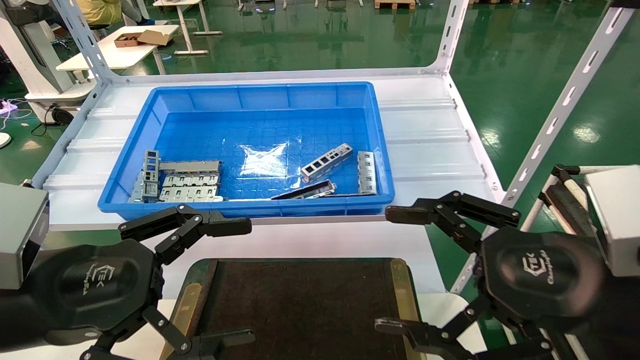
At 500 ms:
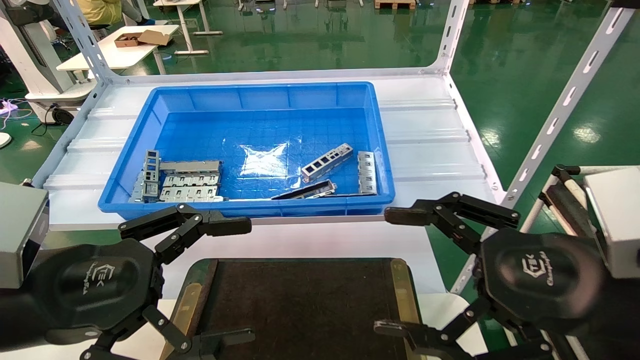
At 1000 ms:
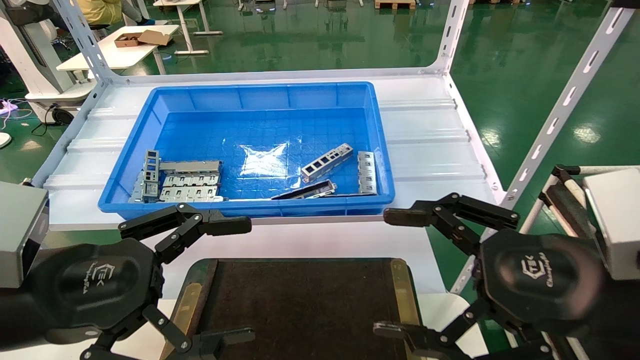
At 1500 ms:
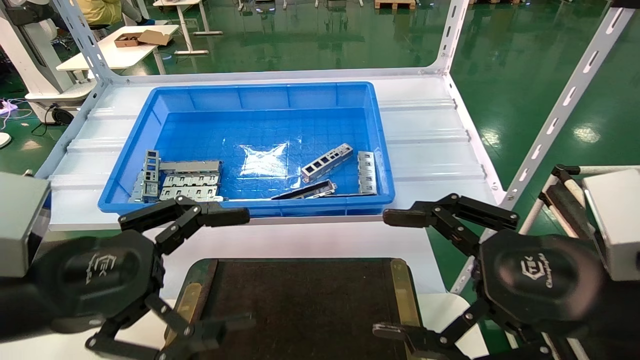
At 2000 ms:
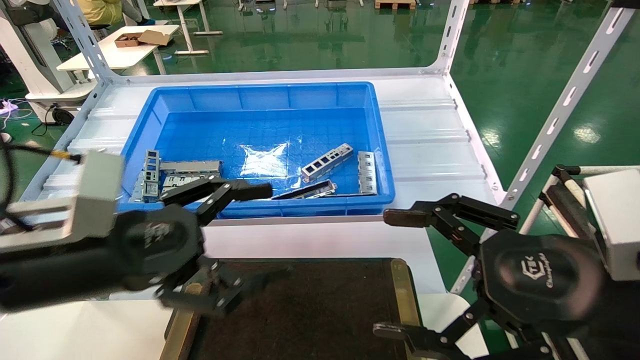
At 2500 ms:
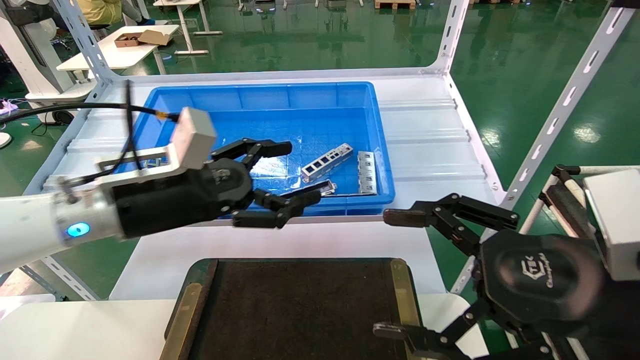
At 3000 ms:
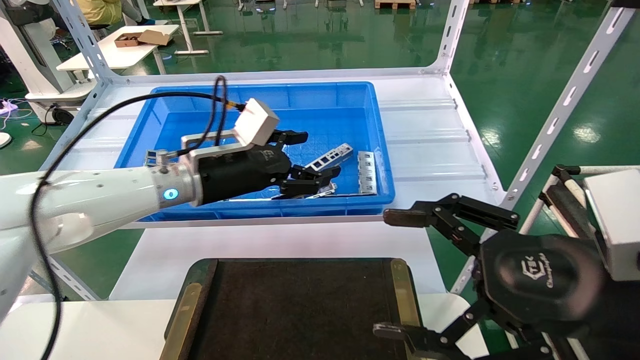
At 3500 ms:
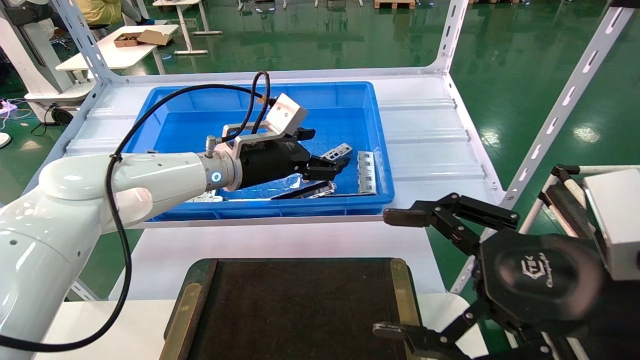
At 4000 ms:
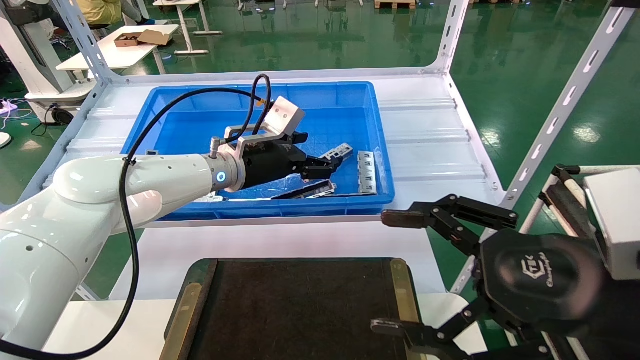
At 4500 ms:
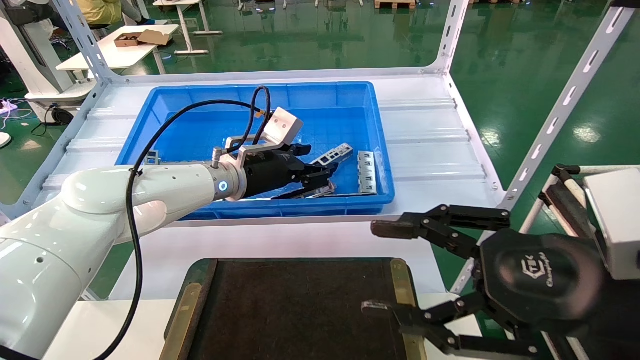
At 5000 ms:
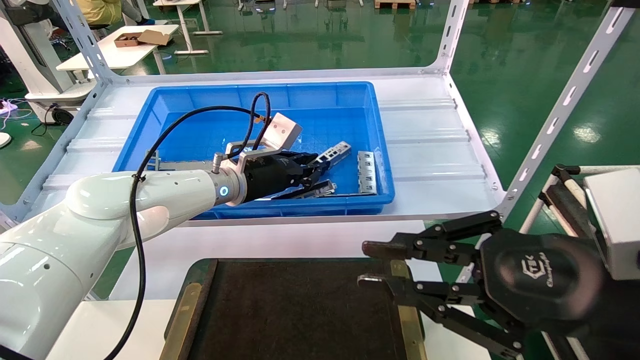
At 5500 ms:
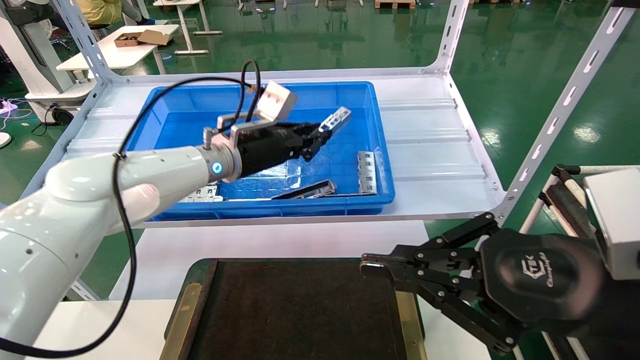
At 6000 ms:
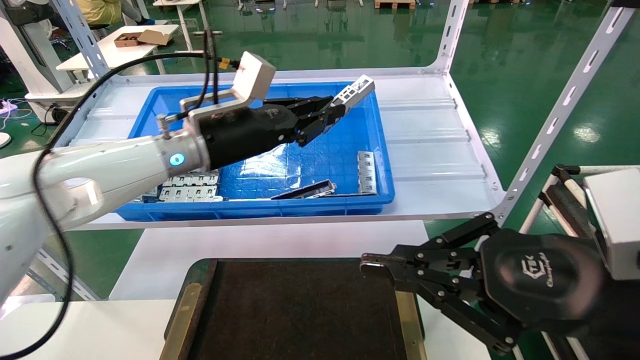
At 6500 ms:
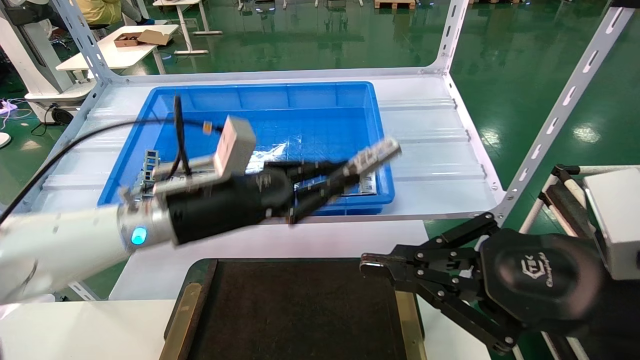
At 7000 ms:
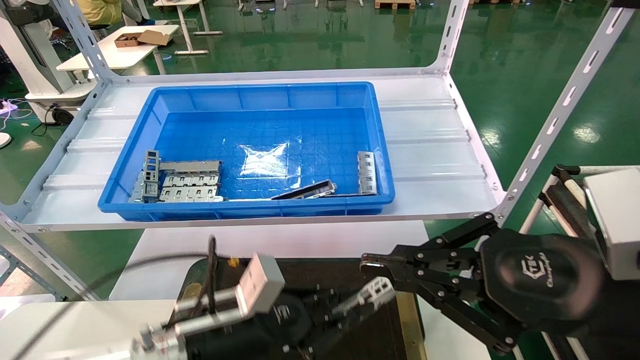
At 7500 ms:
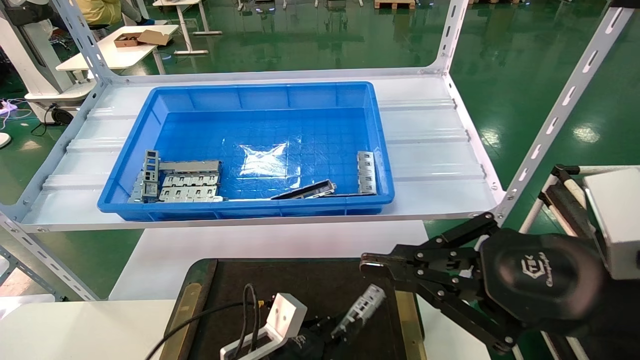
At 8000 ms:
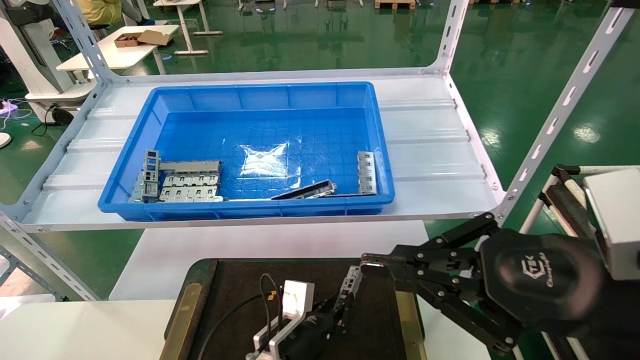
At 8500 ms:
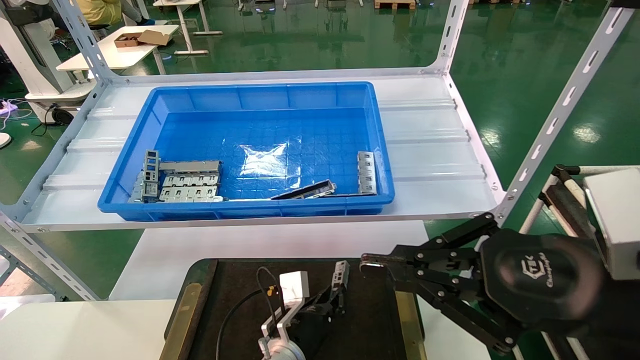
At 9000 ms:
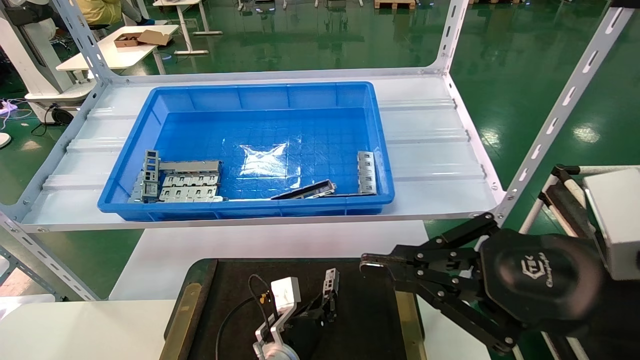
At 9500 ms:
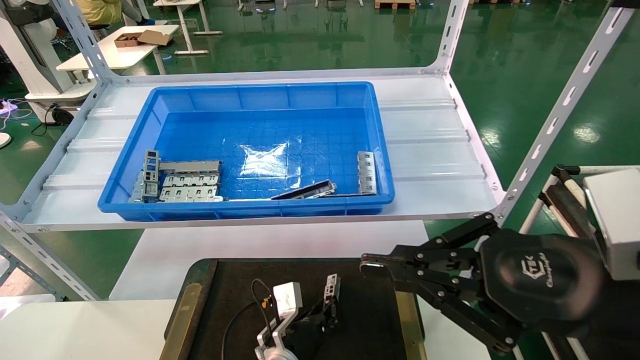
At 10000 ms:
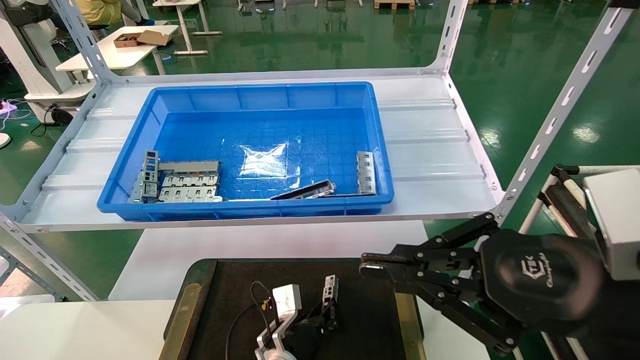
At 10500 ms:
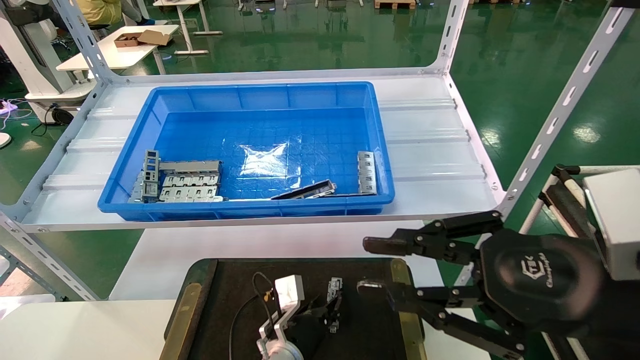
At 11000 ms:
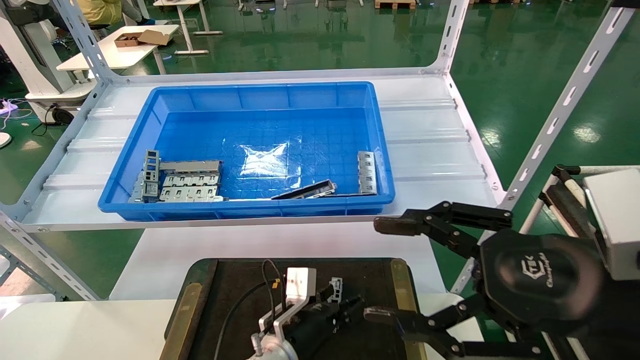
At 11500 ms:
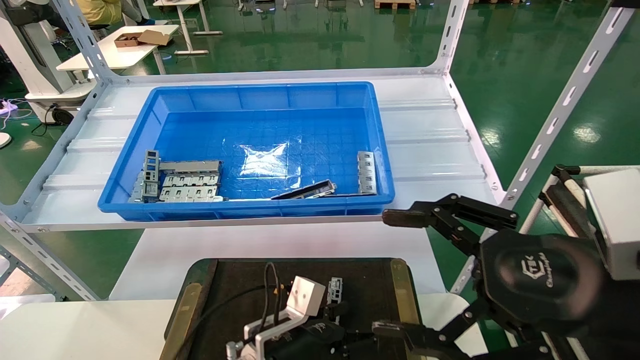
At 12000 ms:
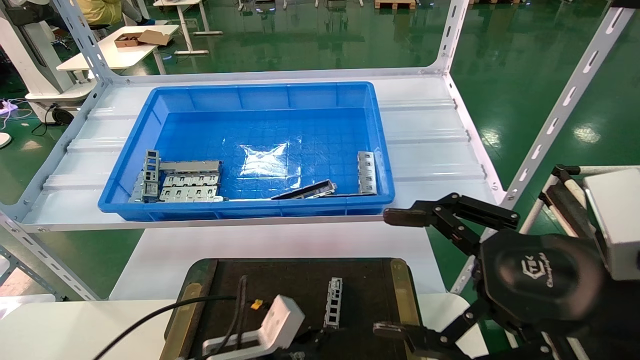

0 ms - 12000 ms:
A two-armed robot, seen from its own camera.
Task of the whole recording: Grasp the part with one hand and place it on the black container.
Step, 2000 ms - 5500 ms: Pick up the front USB bracket from the feeding area.
Step, 6000 ms - 10500 ms: Place the front USB bracket into the box.
0 ms - 2000 ms: The left gripper is displaced forward by roughly 5 cm.
2000 ms - 4000 ms: The left gripper is displaced forward and to the right by roughly 25 cm.
4000 ms - 6000 ms: The right gripper closes its fingers. Meanwhile the left gripper moves backward, some 5 cm, and closes.
6000 ms - 8000 ms: The left gripper heads downward, covering some 35 cm.
10000 ms - 12000 ms: The left gripper shifts some 15 cm backward, upward and to the left, and opens its fingers. The right gripper opens.
